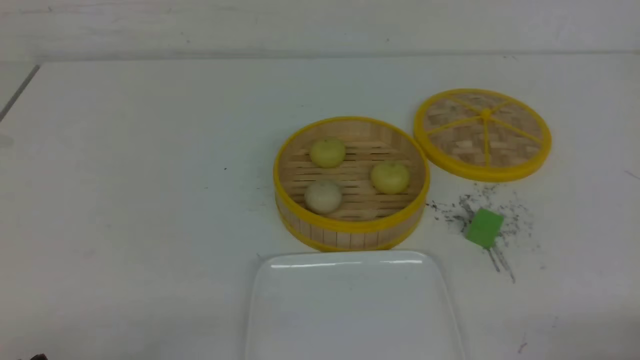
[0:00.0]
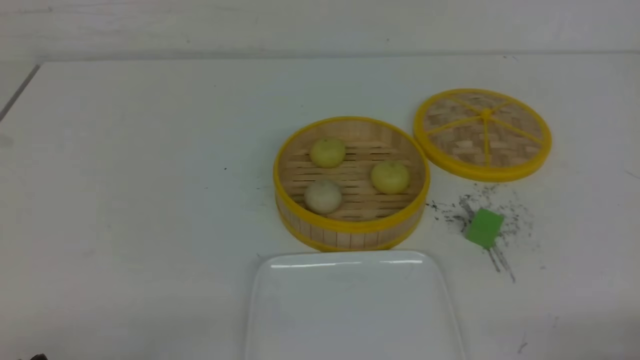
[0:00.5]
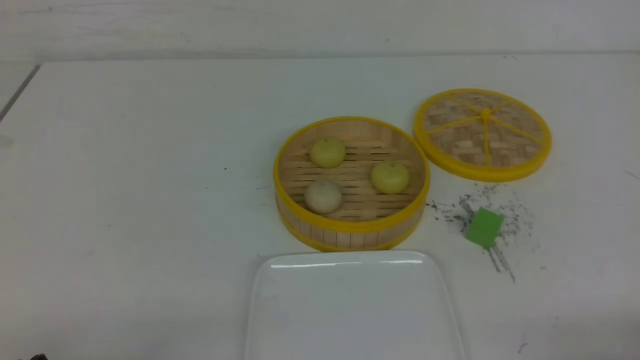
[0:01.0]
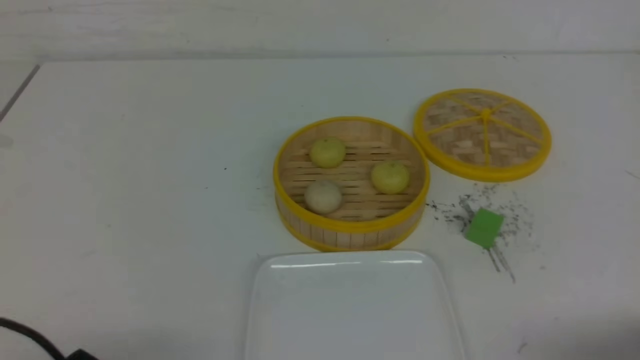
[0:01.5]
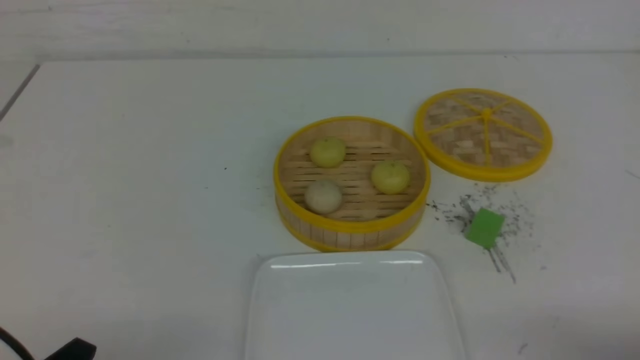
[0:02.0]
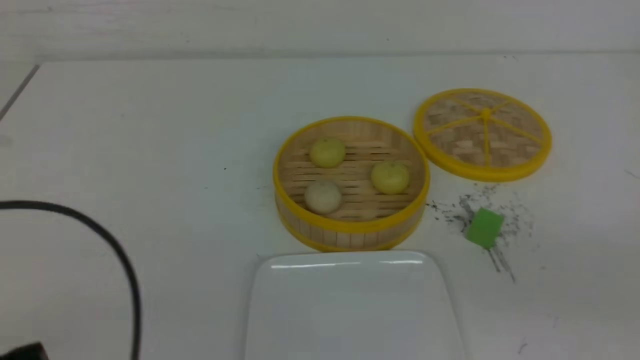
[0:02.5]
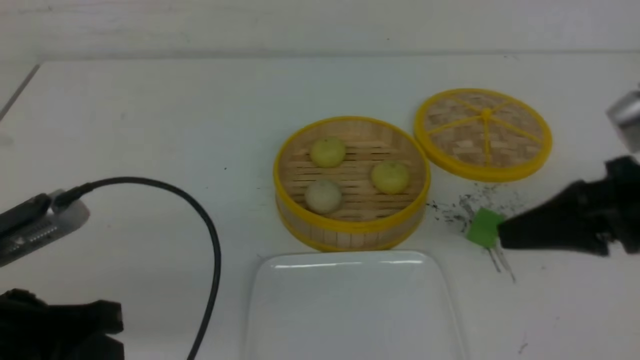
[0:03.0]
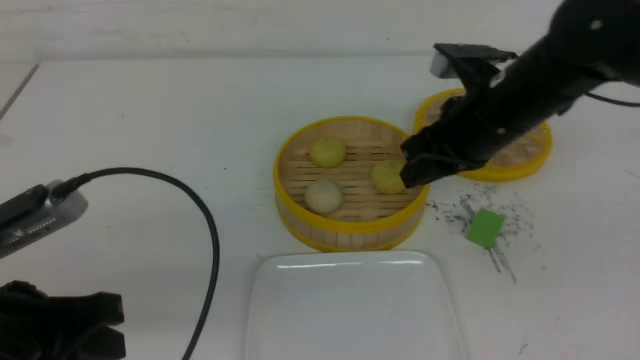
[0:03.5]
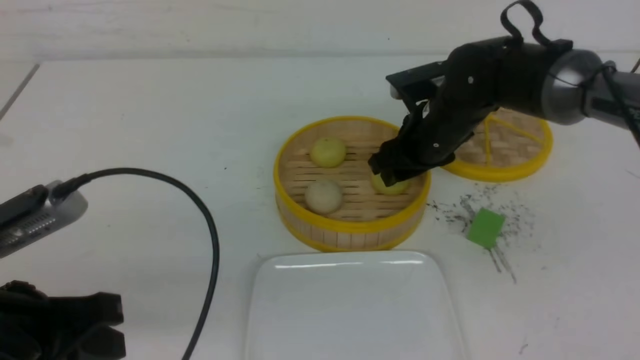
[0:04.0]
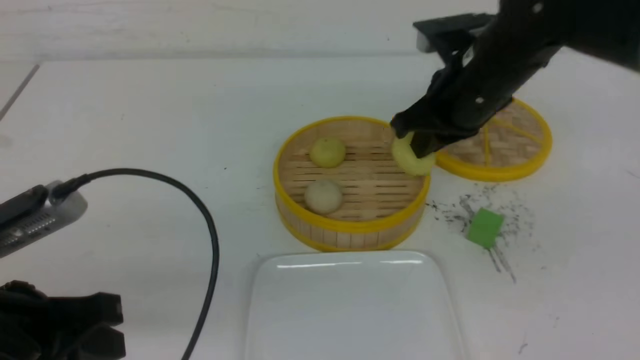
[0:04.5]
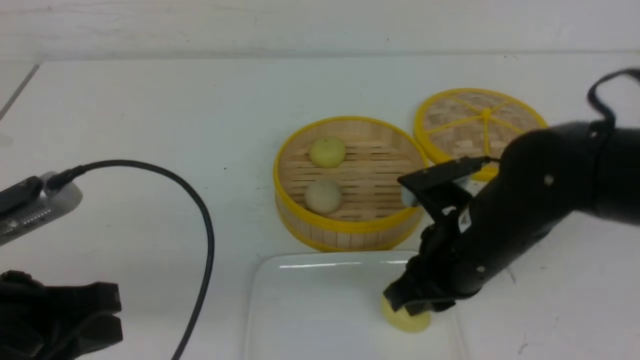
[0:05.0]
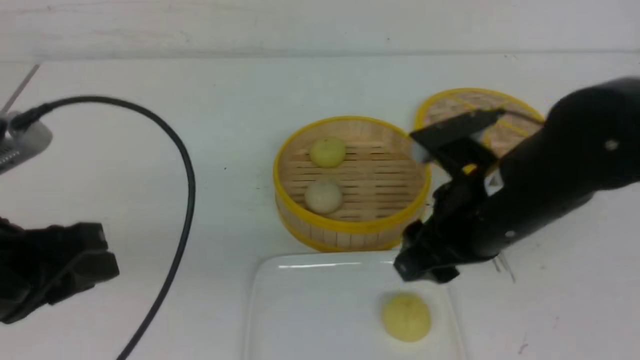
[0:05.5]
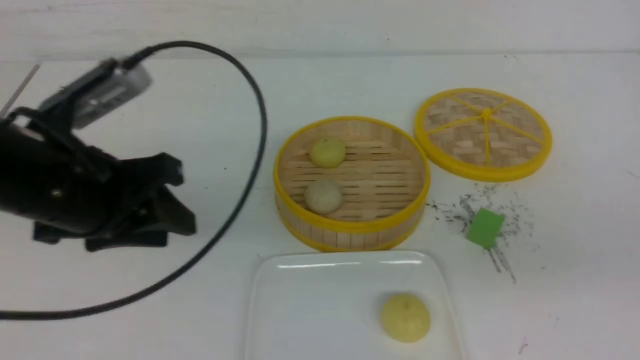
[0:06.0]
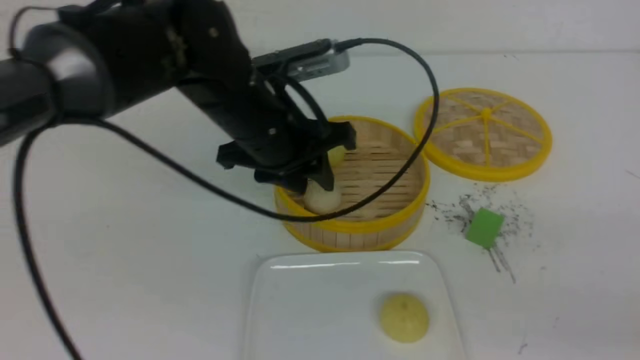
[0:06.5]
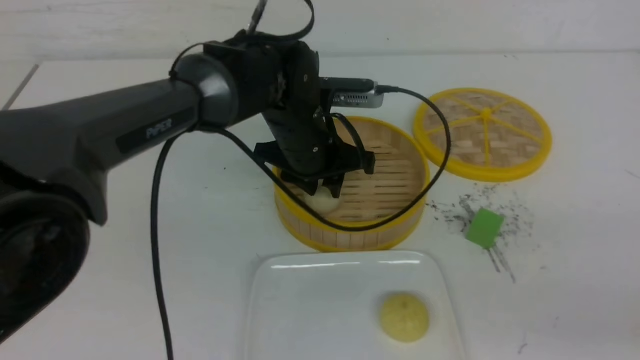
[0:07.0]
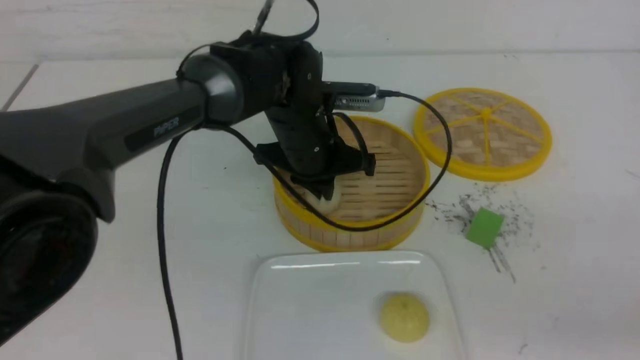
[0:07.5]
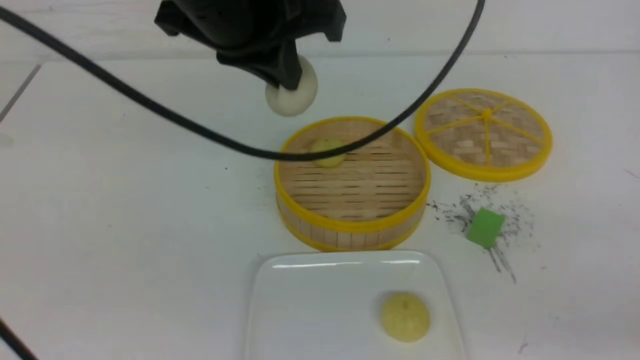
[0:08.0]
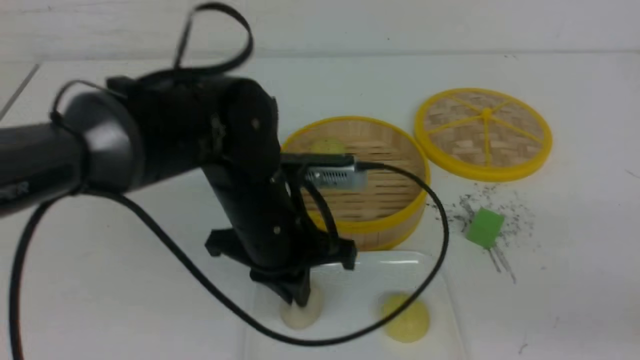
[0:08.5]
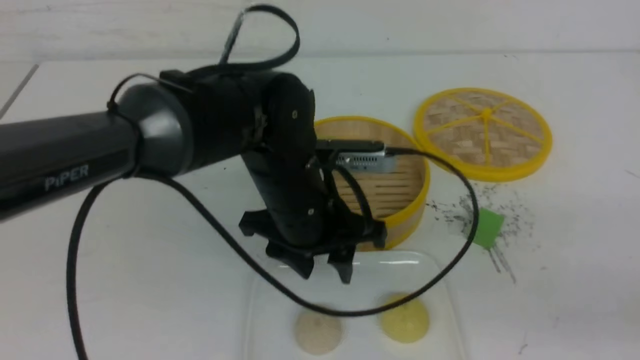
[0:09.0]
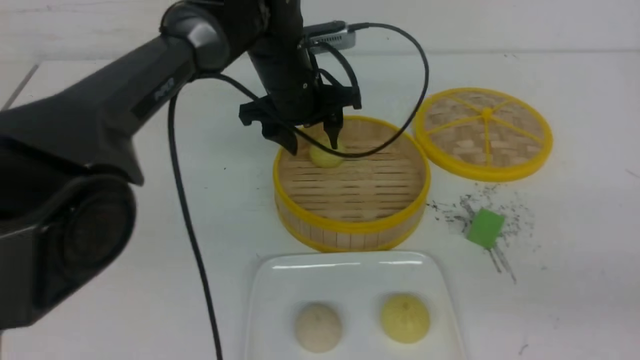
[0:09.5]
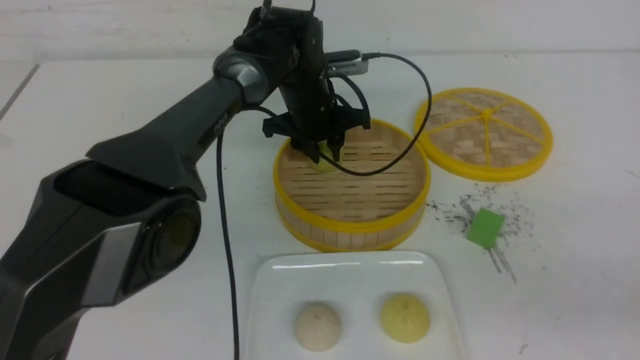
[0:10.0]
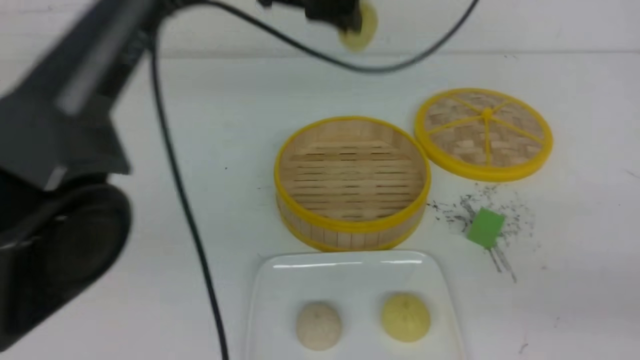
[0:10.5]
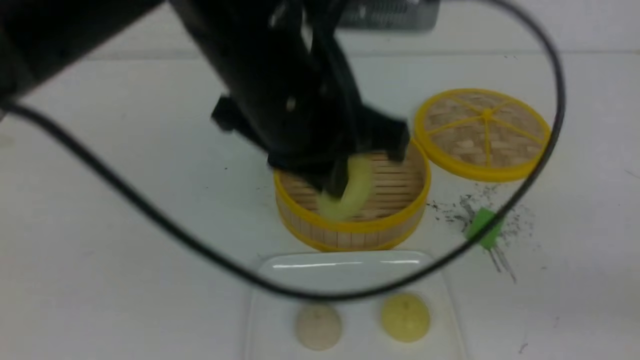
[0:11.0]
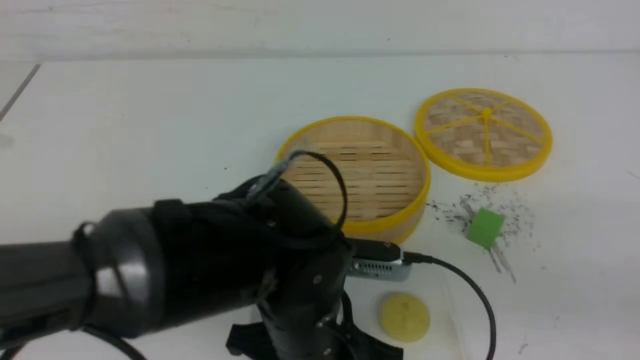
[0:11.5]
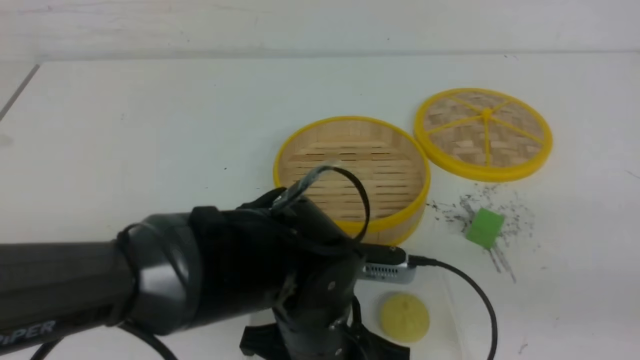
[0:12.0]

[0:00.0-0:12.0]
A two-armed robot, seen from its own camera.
Step, 0:00.0 to 0:04.0: use the right arm to grab the steamed stuffed bun that is closest to it.
Step, 0:04.5 to 0:05.0: use the right arm to put the steamed stuffed bun into the plate.
Step, 0:05.5 to 0:07.0: use the left arm to grab the steamed stuffed bun that is closest to it.
Step, 0:07.5 to 0:08.5: use the left arm to put the steamed stuffed bun into the plate.
Step, 0:09.0 to 0:10.0: use the left arm to grab the steamed stuffed bun that is closest to it.
0:02.0 to 0:04.0: The right gripper travels forward and to the left by roughly 40 cm, and opens up. The left gripper heads forward and upward, covering roughly 10 cm.
0:04.0 to 0:06.0: The right gripper travels backward, to the right and upward by about 35 cm, and closes, while the left gripper shifts about 10 cm forward, and opens.
0:06.0 to 0:08.0: The right gripper heads downward, covering some 5 cm, while the left gripper shifts roughly 15 cm to the right, upward and forward, and closes its fingers.
0:08.0 to 0:10.0: The left gripper moves forward and downward, about 25 cm, and opens up.
0:10.0 to 0:12.0: The left gripper heads backward, covering roughly 30 cm, and closes, then opens again.

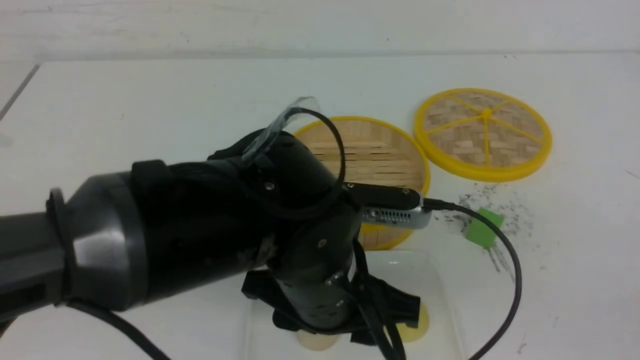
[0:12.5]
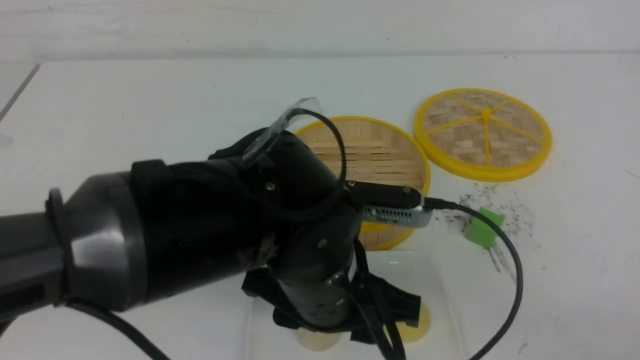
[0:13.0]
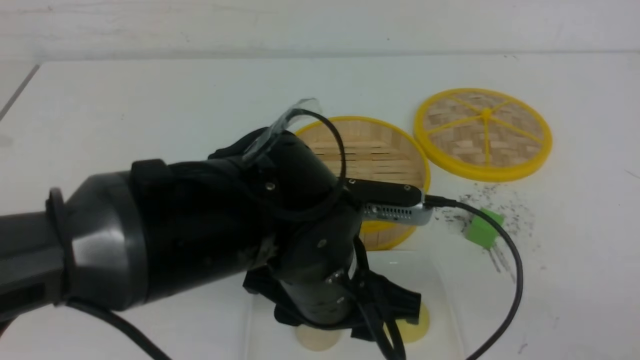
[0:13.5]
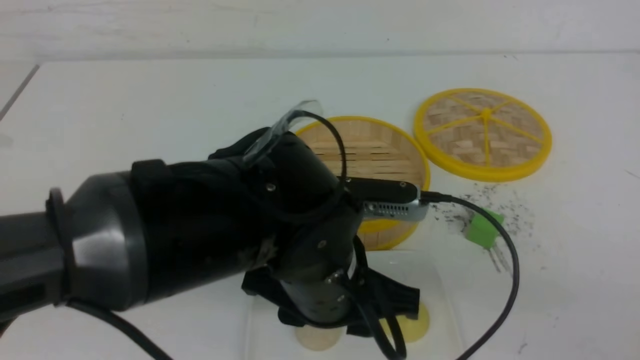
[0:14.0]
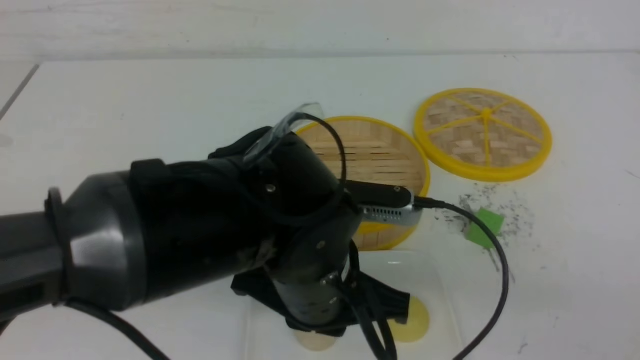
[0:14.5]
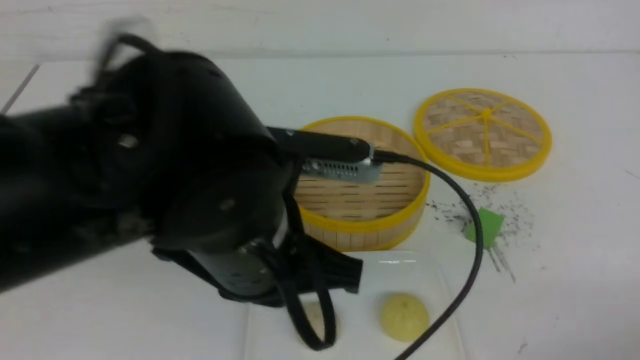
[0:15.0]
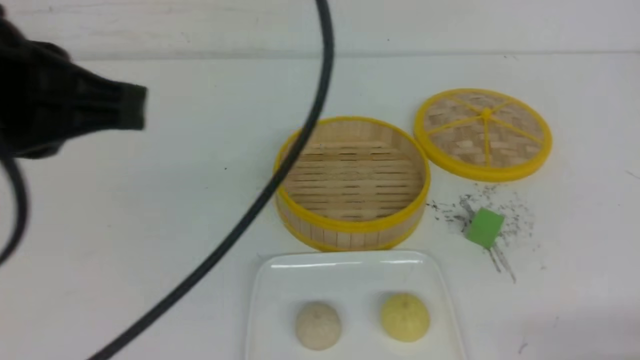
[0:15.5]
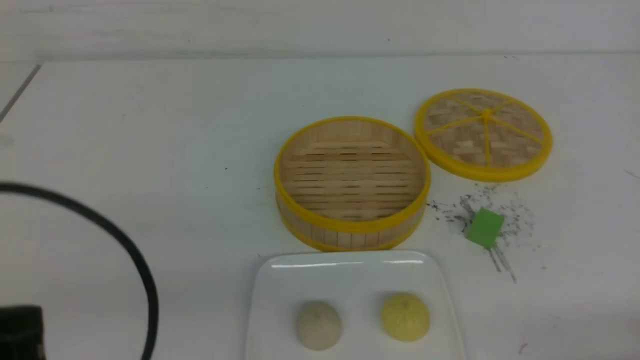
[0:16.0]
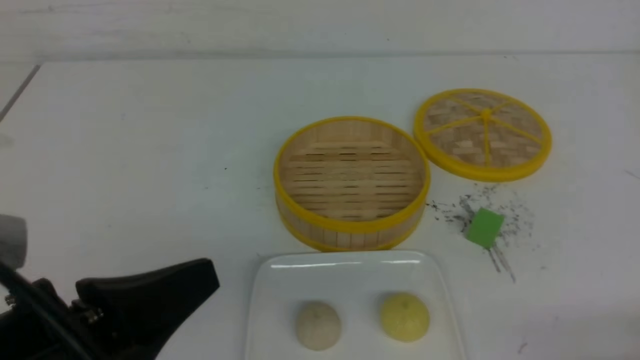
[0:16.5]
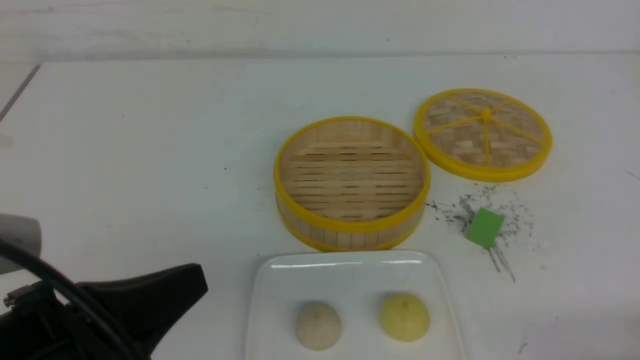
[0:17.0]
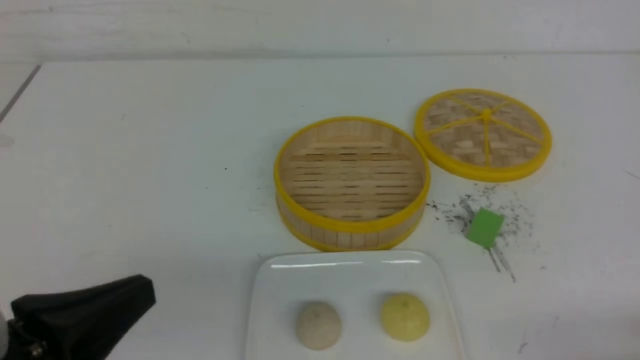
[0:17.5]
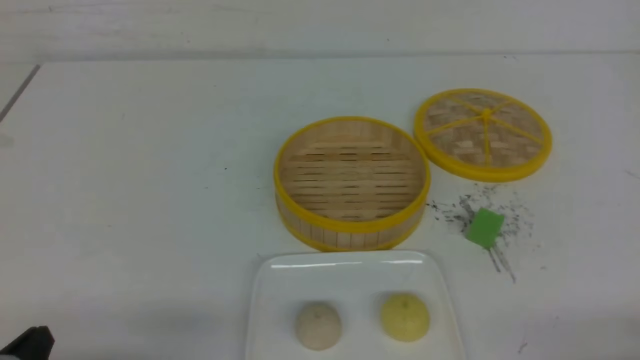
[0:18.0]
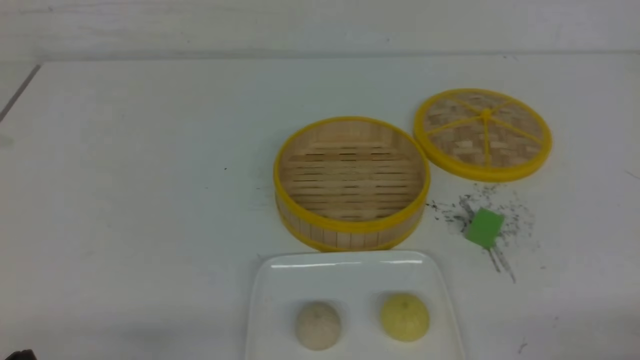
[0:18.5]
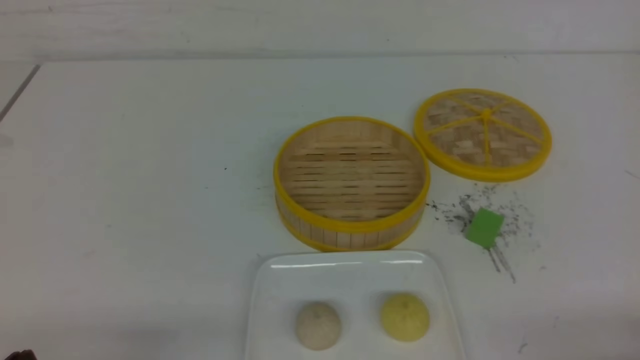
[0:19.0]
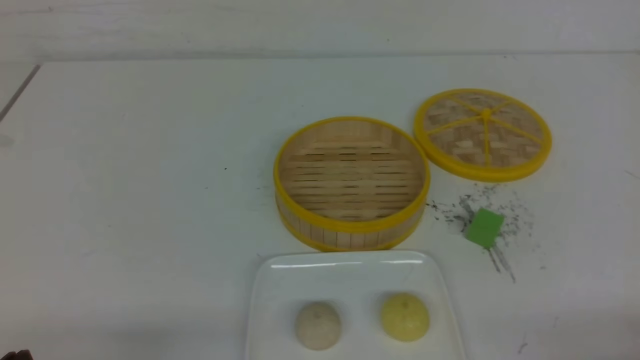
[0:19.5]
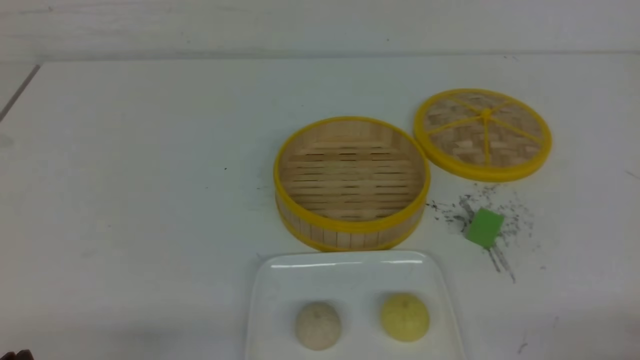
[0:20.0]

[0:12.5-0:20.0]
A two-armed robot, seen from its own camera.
0:12.5 to 0:14.5: The left gripper closes. Meanwhile the right gripper goes roughly 5 cm downward.
0:14.5 to 0:16.5: The left gripper moves to the left and backward, about 20 cm; the right gripper moves downward, approximately 10 cm.
0:16.5 to 0:18.0: The left gripper shifts about 15 cm downward and to the left.
